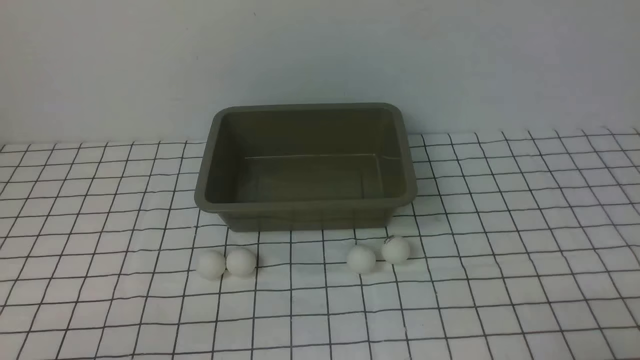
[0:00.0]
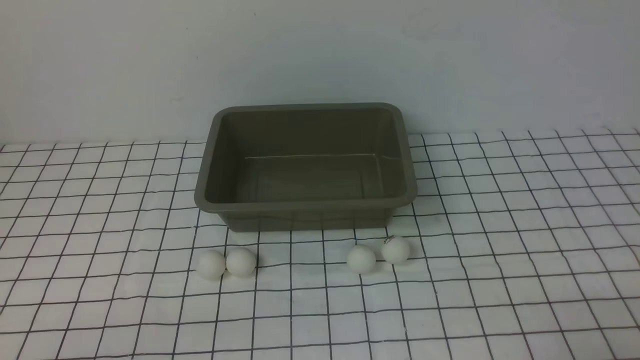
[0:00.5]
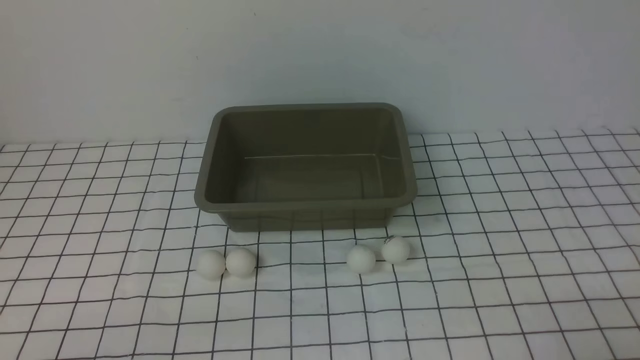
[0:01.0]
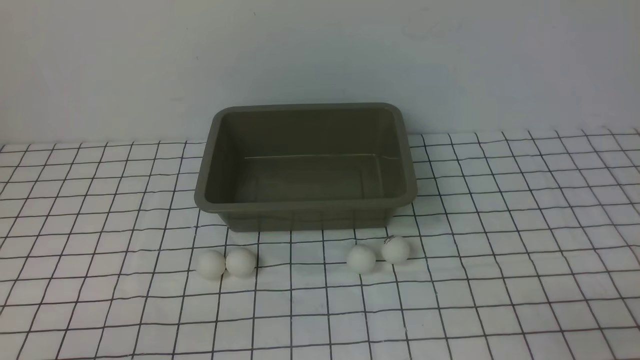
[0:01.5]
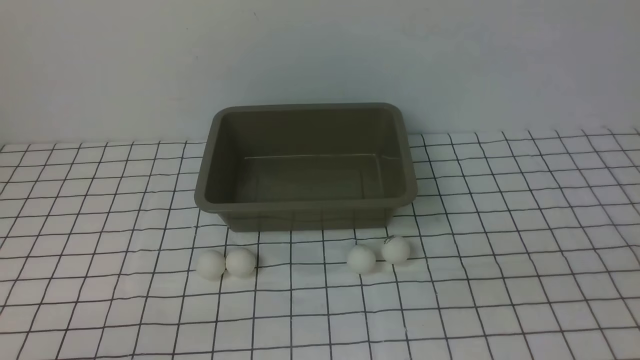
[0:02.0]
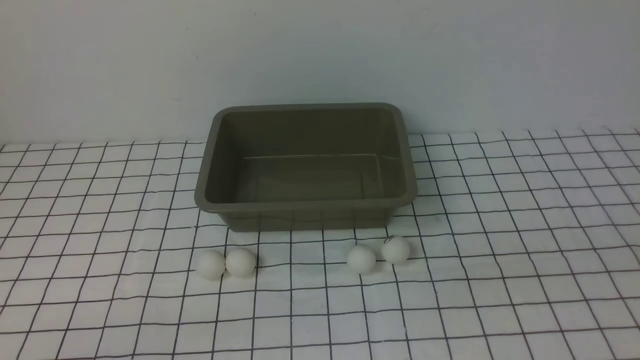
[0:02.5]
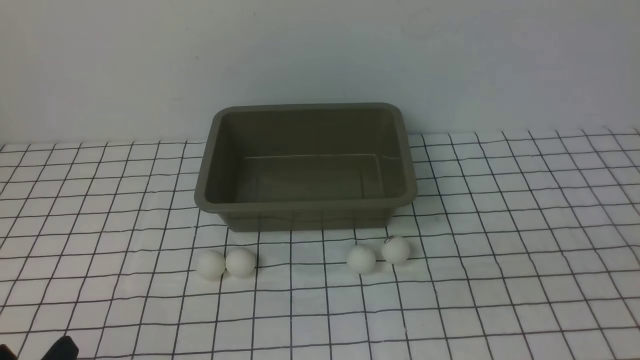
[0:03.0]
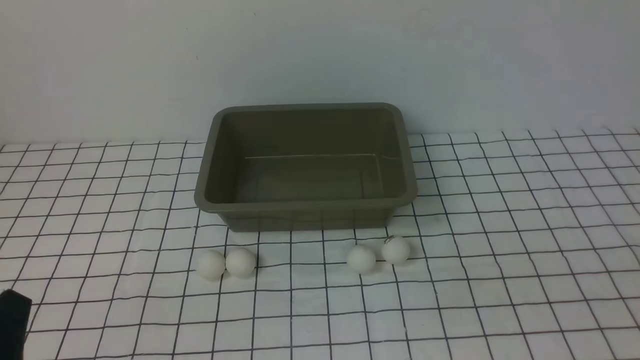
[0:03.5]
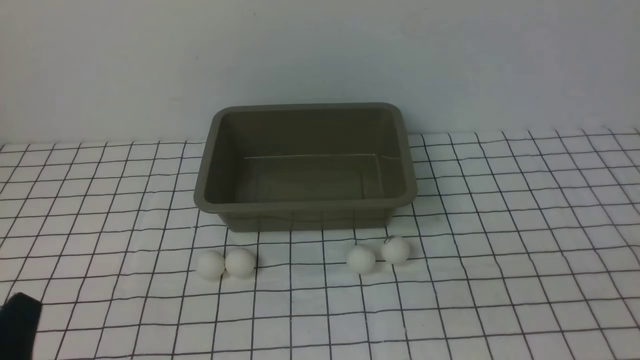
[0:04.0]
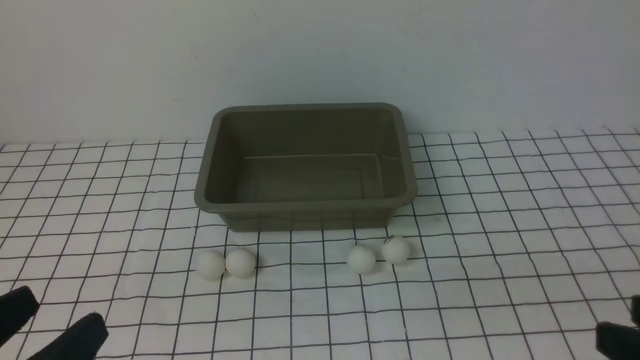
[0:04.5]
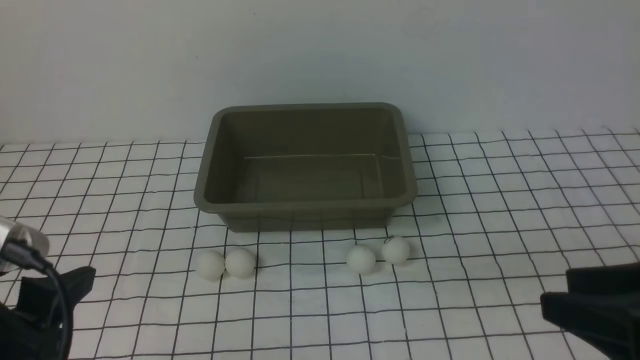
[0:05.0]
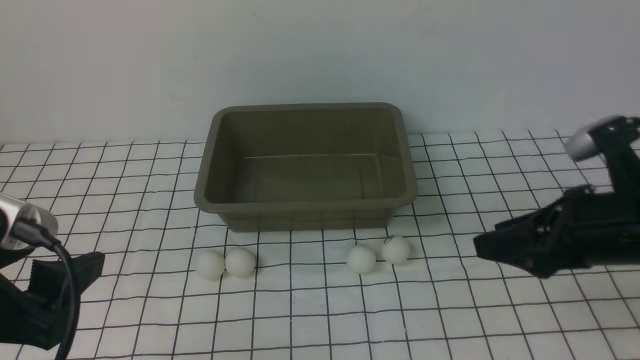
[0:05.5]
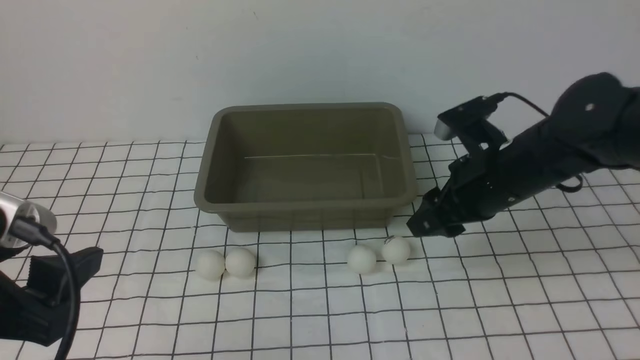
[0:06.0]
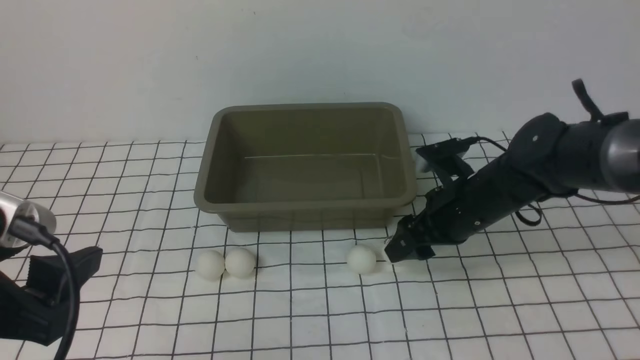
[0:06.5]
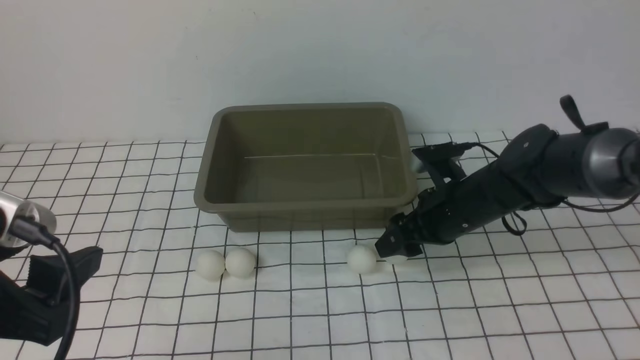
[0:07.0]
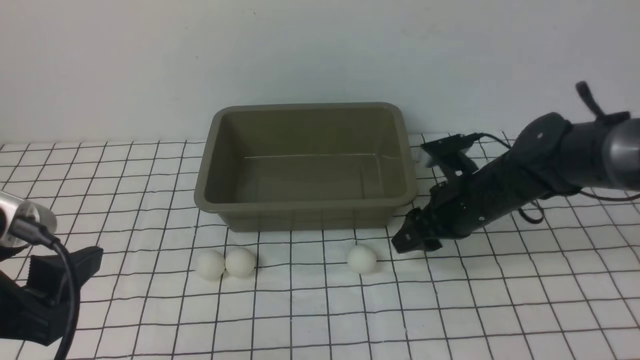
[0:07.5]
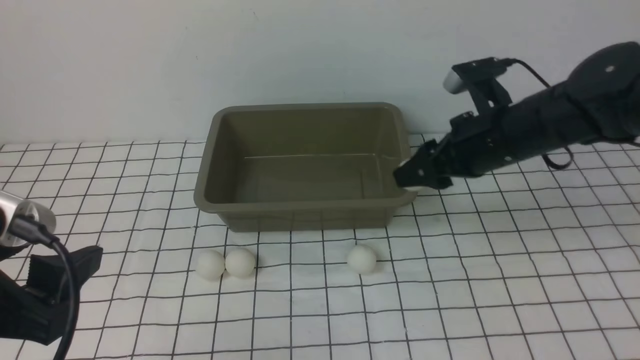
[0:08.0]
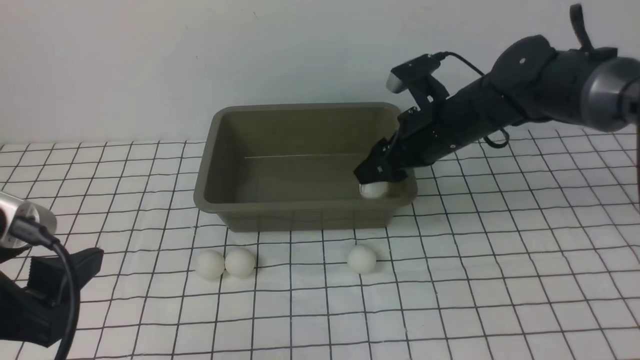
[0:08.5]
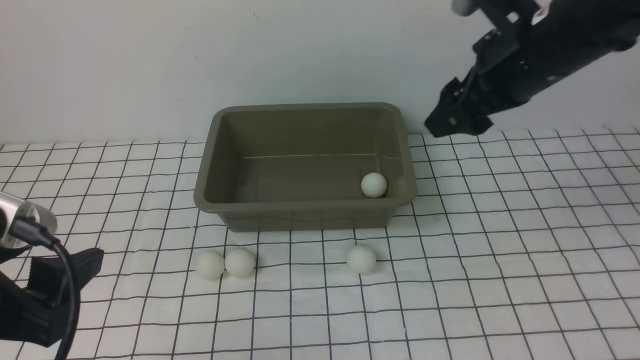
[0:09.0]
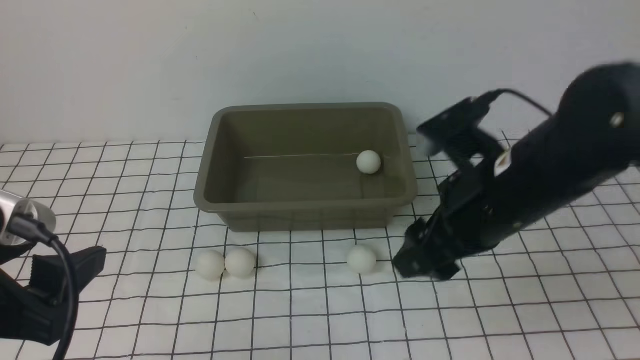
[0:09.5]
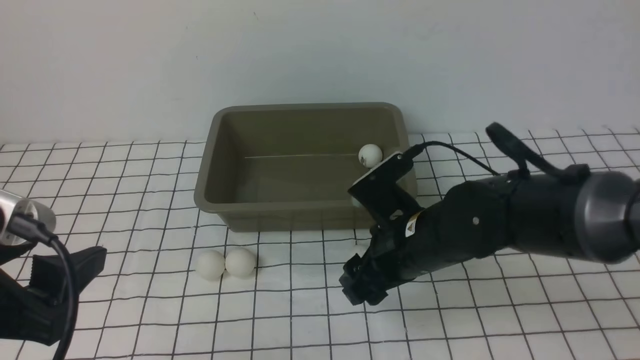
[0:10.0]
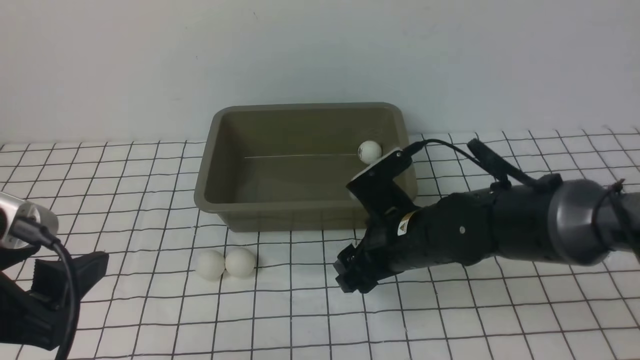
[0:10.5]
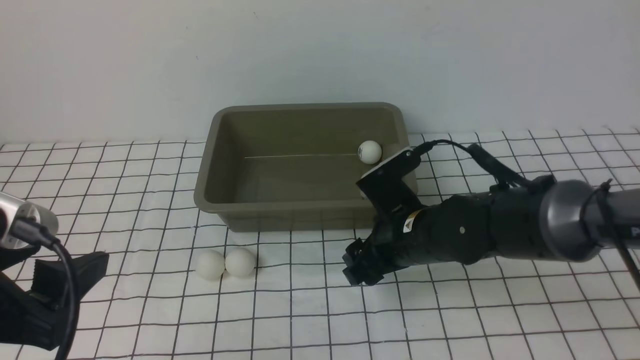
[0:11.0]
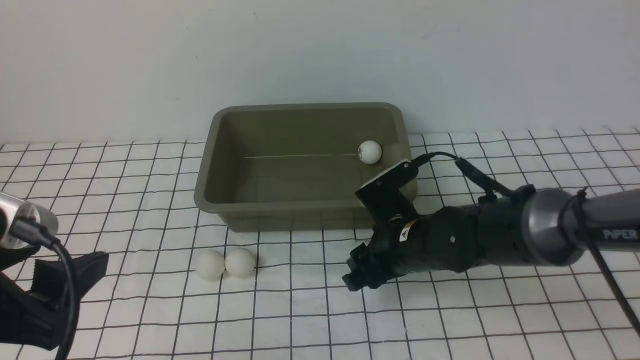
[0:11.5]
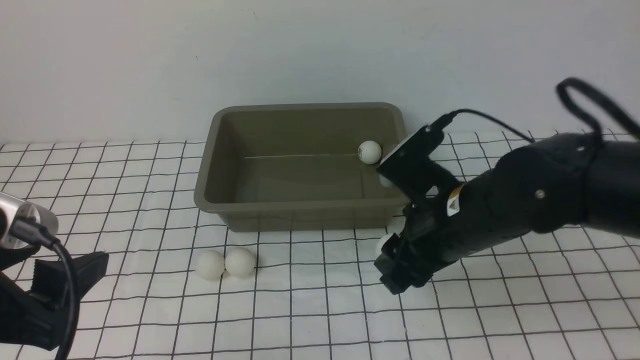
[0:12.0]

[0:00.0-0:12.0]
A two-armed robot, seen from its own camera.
Step, 0:00.0 to 0:07.5: use the right arm to clamp the table tennis ball closest to it.
Step, 0:08.0 to 0:08.5: use the right arm to put the table tennis ball into the box.
Step, 0:09.0 to 0:11.5: use the right arm to clamp the table tennis ball closest to it.
0:04.0 to 0:06.0: The right gripper moves forward, about 30 cm, while the left gripper heads upward and forward, covering some 10 cm.
0:06.0 to 0:08.0: The right gripper travels downward and back again, about 10 cm each way, and opens and closes again.
0:08.0 to 0:10.0: The right gripper travels backward and to the left by some 10 cm, goes upward and returns, approximately 10 cm each way, and opens.
0:10.0 to 0:12.0: The right gripper closes.

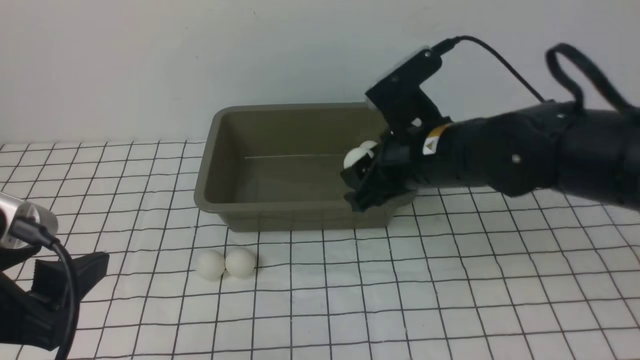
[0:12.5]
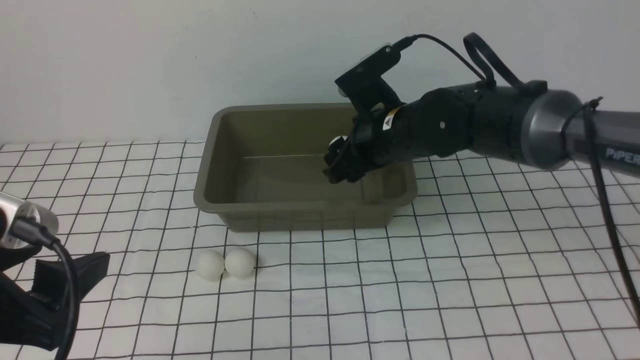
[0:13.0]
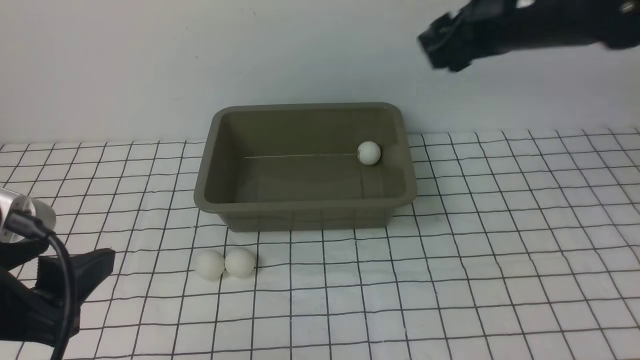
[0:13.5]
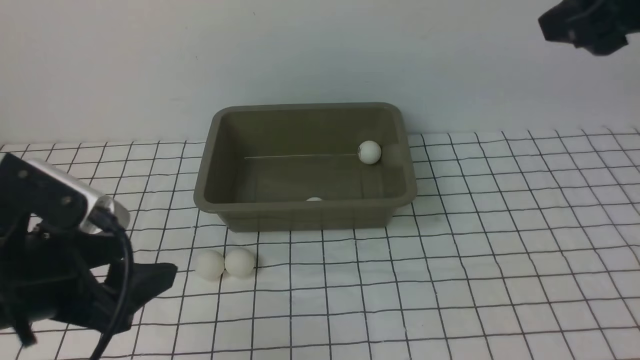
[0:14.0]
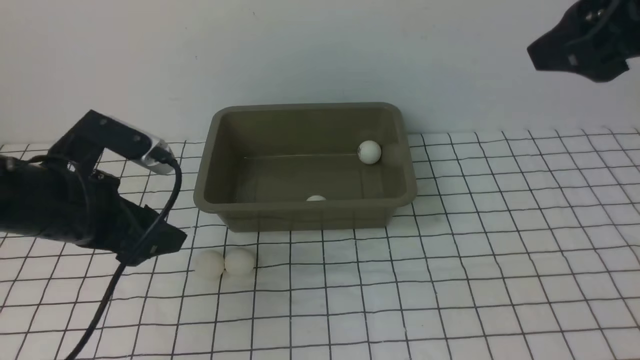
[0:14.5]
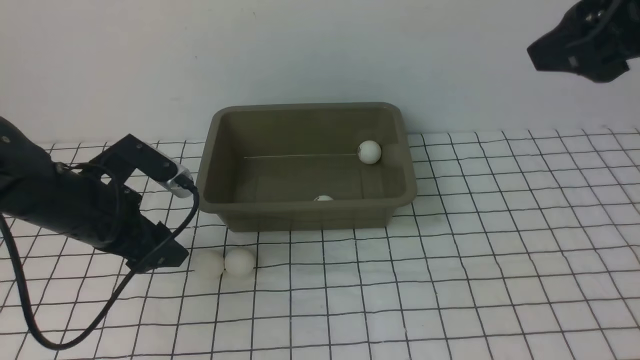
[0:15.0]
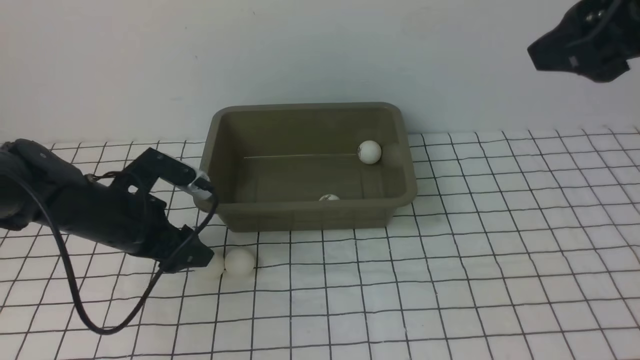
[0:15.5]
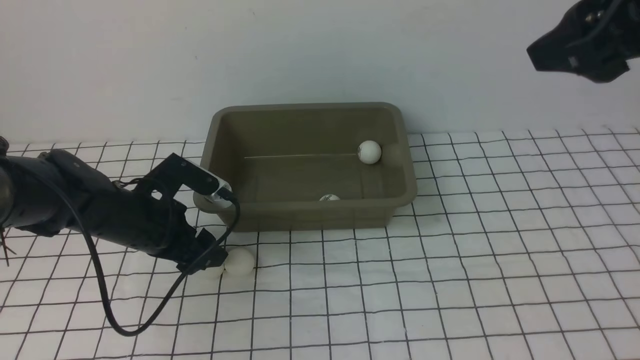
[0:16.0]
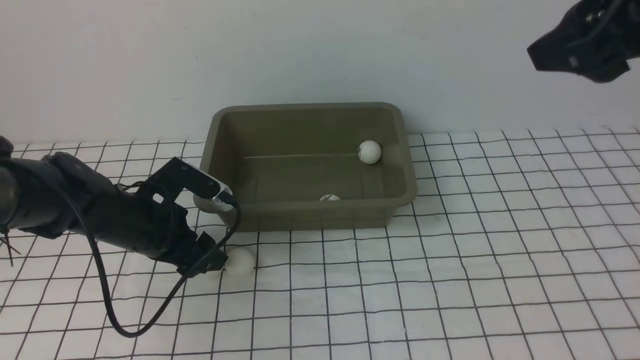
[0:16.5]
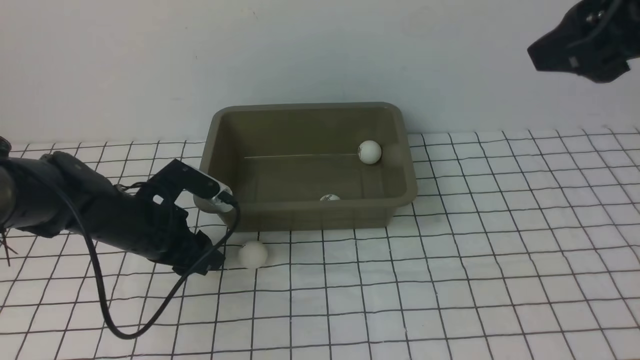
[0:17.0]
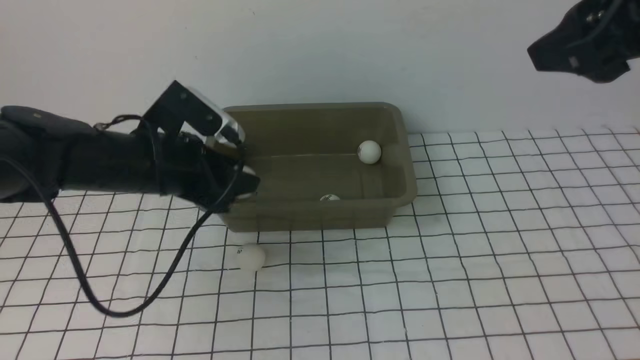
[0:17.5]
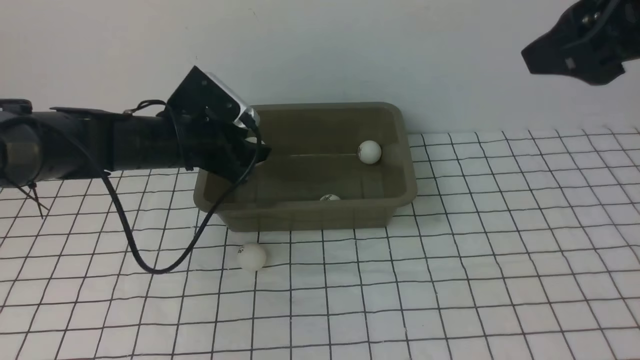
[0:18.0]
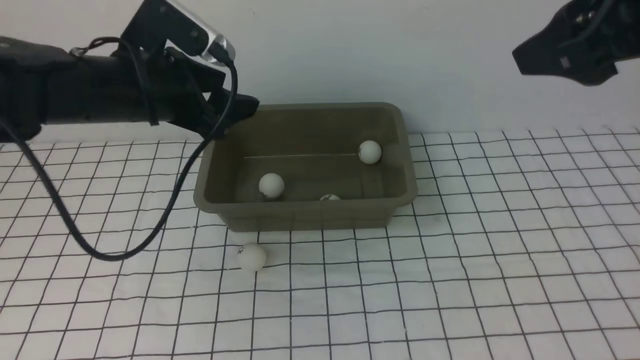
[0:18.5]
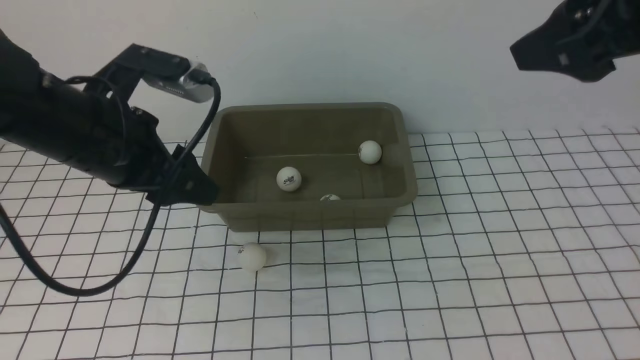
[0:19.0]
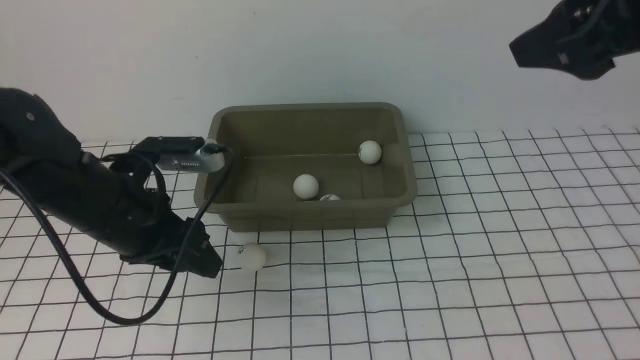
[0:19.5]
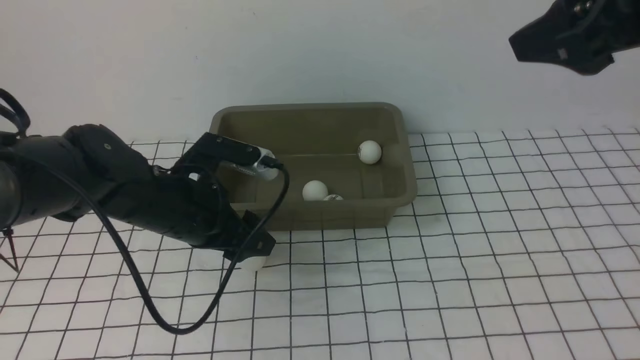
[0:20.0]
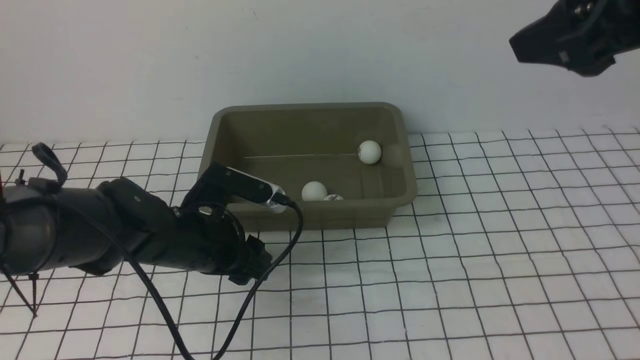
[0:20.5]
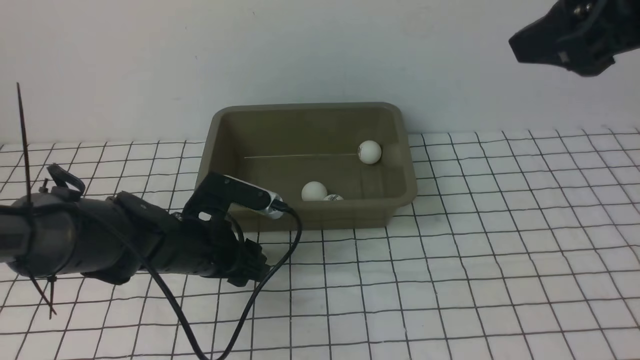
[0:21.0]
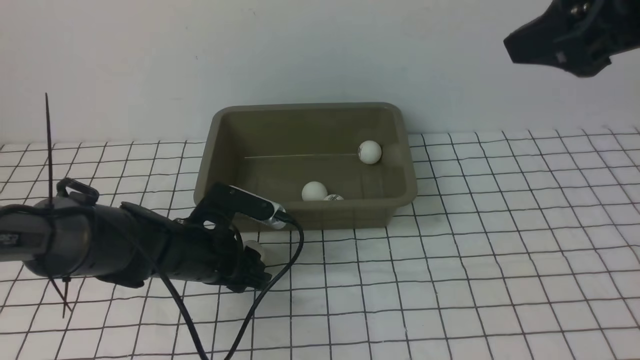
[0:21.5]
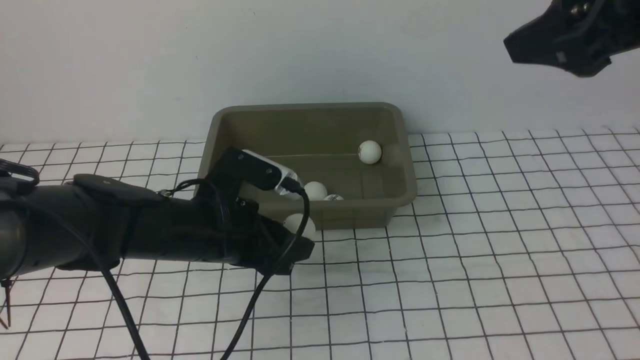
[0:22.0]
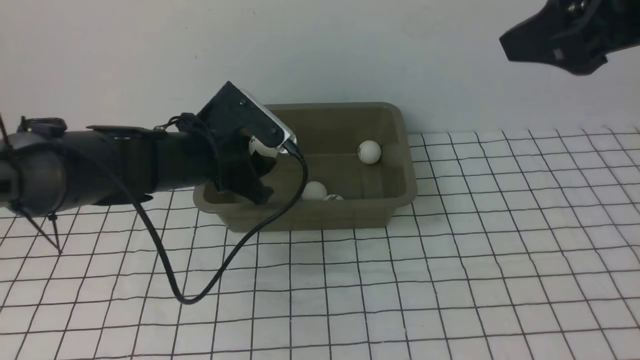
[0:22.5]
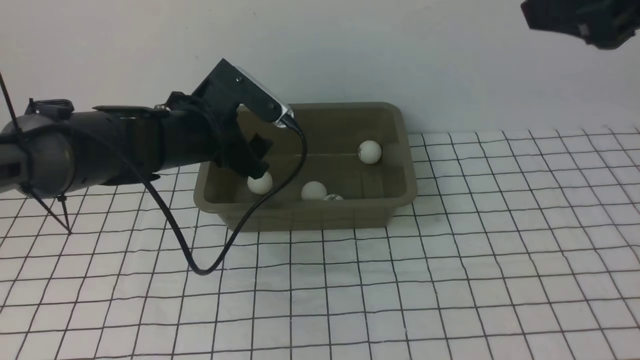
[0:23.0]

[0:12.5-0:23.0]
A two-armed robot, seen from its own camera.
Step, 0:13.5 to 0:17.0: use the left arm to clamp the table tennis ball closest to it.
Step, 0:17.5 to 0:18.0: use the left arm to put the table tennis ball into the box.
Step, 0:18.5 to 0:21.5: use the left arm to clamp the table tennis ball closest to it.
0:12.5 to 0:14.5: The left gripper goes some 15 cm forward, while the right gripper moves upward, to the right and backward, roughly 25 cm, and opens.
0:14.5 to 0:16.5: The left gripper moves downward and forward, some 15 cm.
0:16.5 to 0:19.0: The left gripper shifts roughly 10 cm upward.
0:19.0 to 0:21.0: The left gripper moves downward, about 15 cm.
0:21.0 to 0:23.0: The left gripper shifts approximately 15 cm upward and forward, and opens up. The right gripper moves backward and upward, approximately 10 cm.
